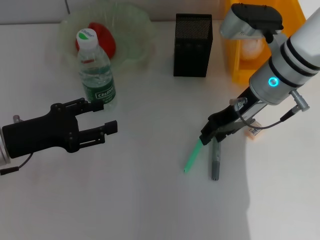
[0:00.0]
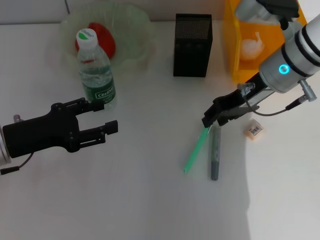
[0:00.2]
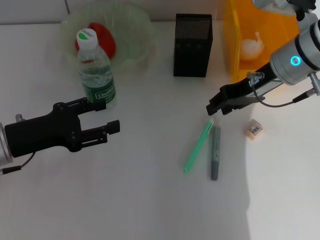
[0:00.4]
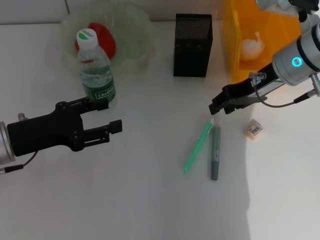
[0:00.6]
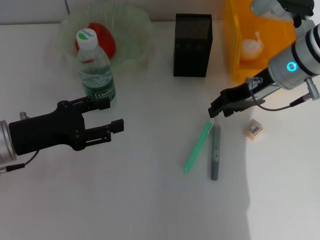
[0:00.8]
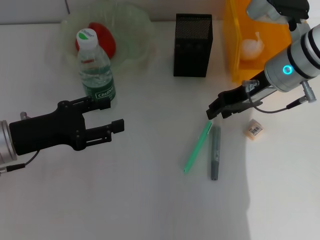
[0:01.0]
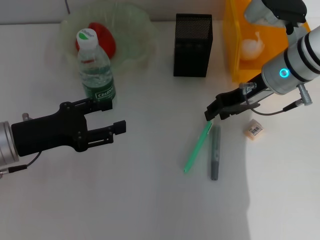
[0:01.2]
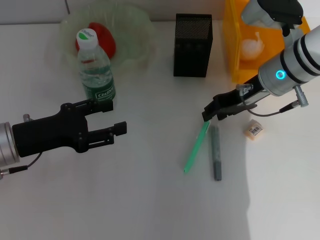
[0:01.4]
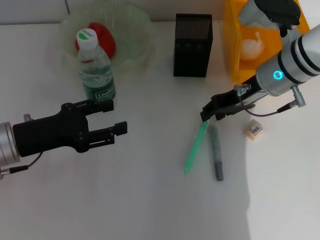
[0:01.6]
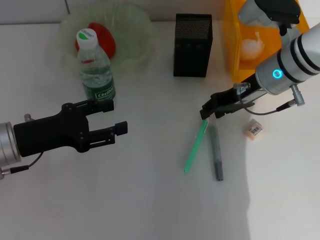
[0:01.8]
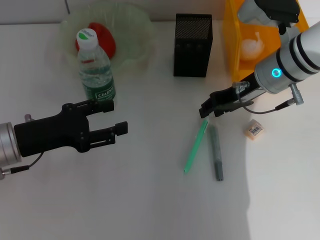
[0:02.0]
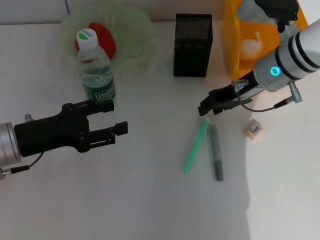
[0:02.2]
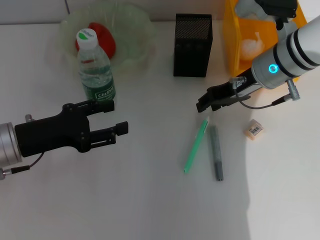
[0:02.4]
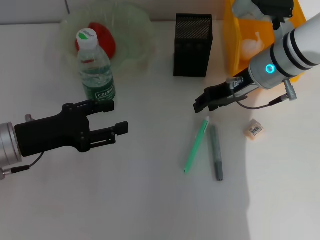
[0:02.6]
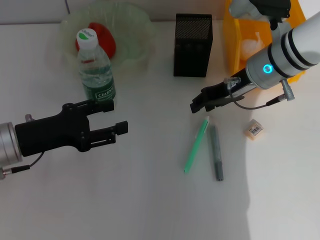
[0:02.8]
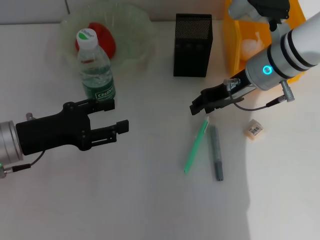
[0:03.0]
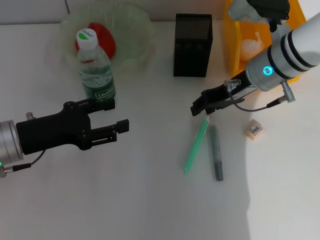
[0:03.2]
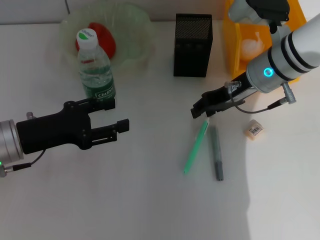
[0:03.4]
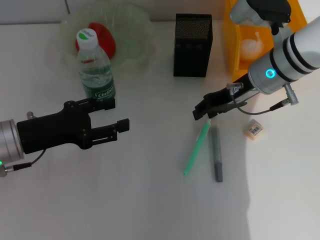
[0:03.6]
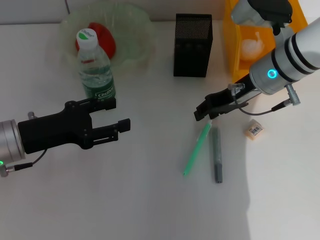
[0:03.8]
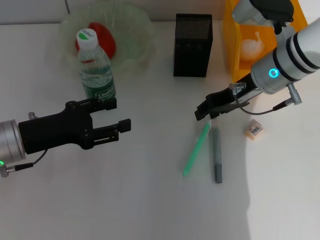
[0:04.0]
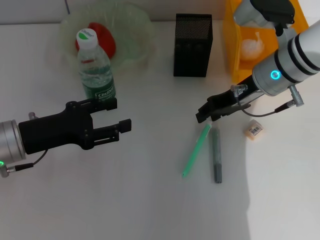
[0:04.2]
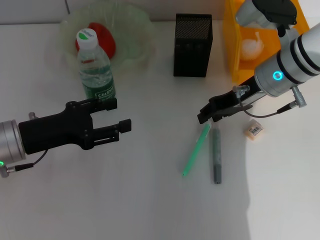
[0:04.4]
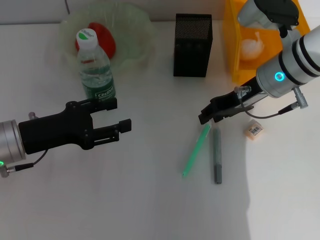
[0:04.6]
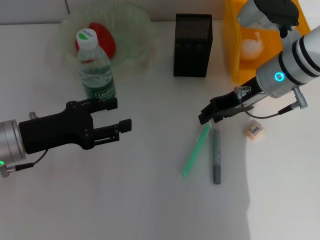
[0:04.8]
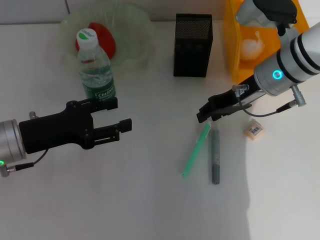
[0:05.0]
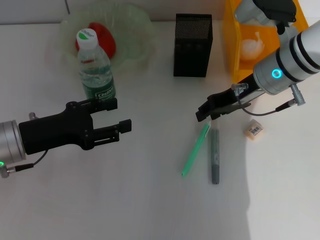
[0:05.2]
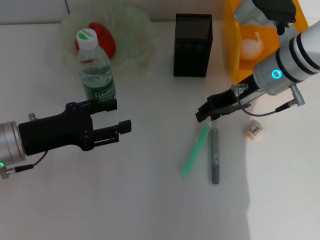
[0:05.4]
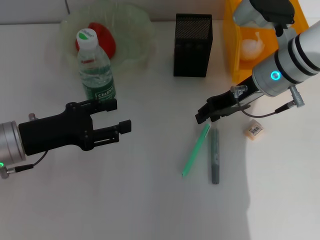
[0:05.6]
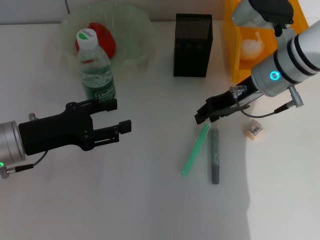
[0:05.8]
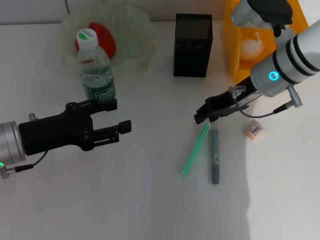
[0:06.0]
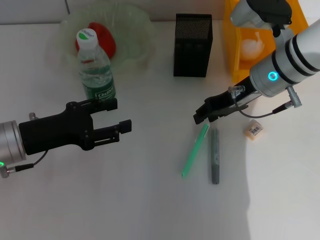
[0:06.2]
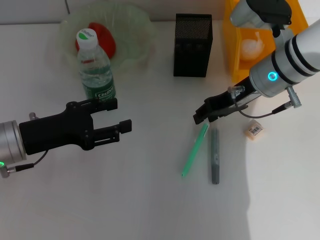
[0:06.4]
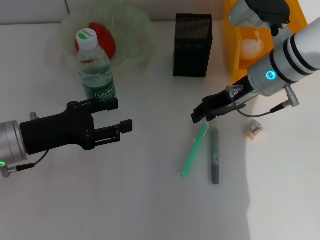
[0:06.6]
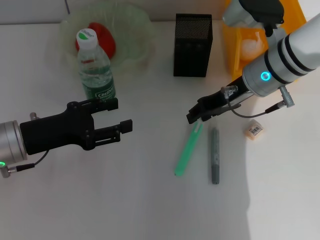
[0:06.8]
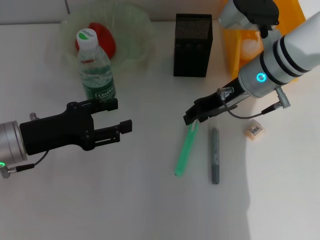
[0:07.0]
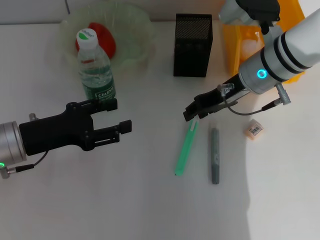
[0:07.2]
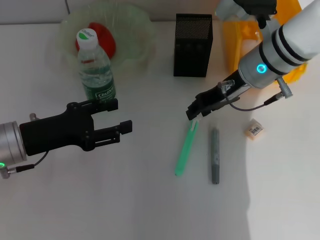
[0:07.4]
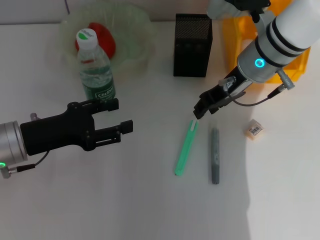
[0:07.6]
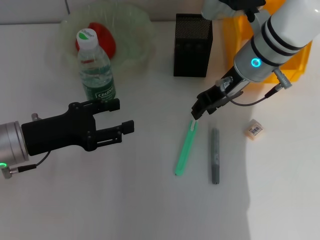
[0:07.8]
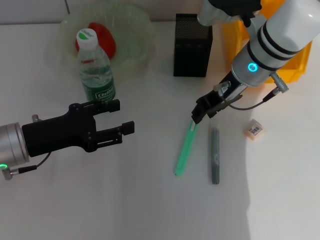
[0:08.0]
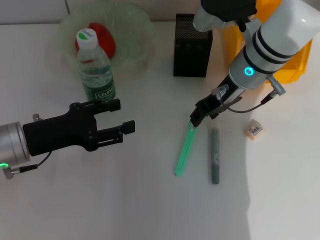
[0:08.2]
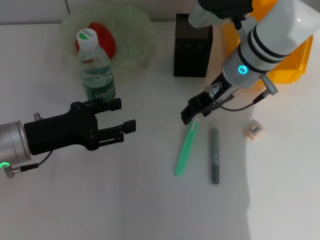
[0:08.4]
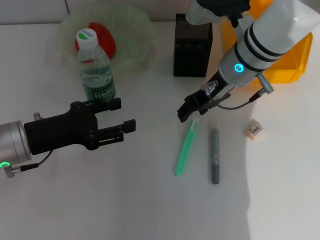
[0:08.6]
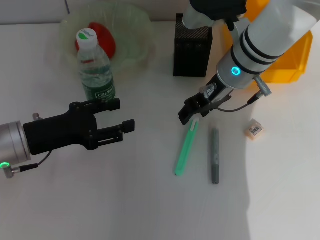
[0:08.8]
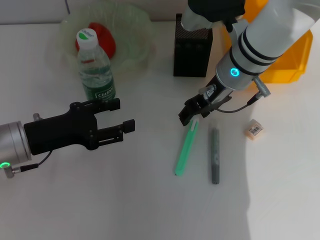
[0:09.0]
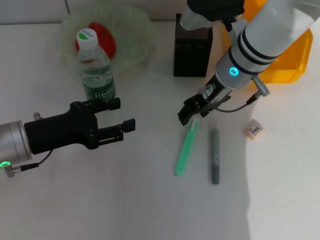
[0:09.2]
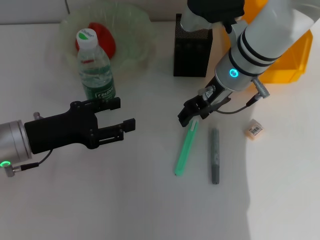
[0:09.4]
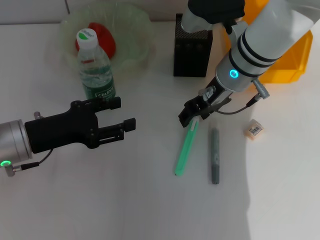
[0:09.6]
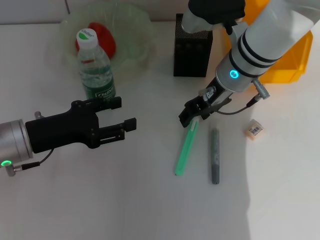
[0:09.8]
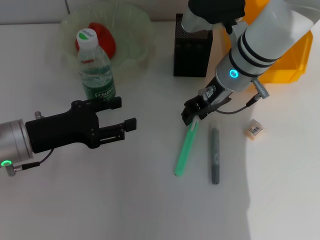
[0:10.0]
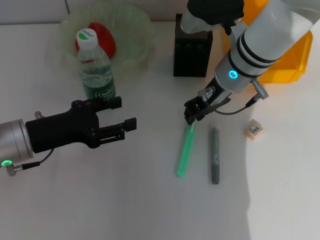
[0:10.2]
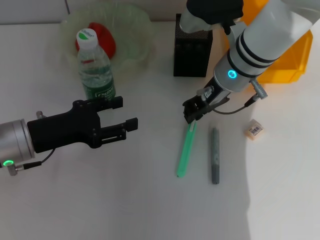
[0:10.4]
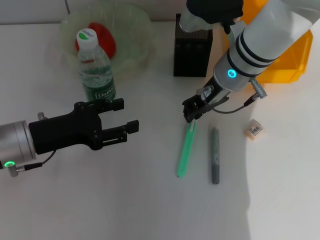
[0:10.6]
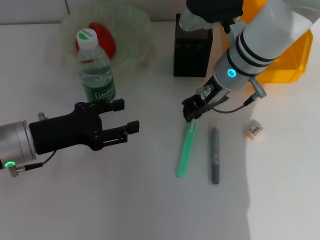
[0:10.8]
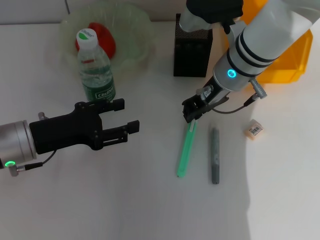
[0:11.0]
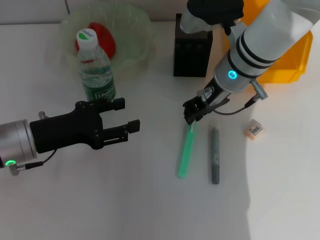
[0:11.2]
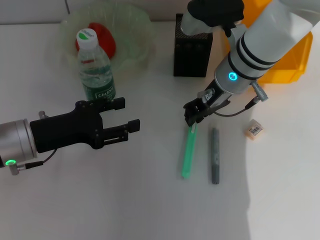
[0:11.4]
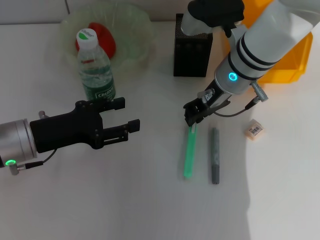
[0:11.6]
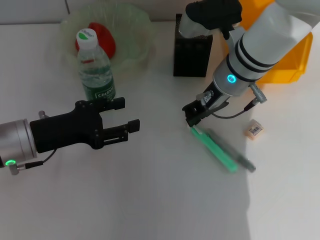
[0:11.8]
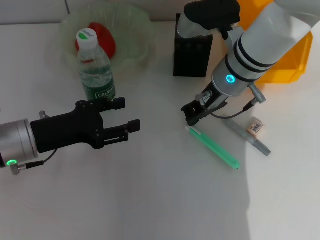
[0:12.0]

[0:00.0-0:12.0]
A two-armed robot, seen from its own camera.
0:00.0 to 0:03.0: The grippers move only a little.
0:03.0 to 0:04.4: Both grippers stay put.
0:04.4 to 0:06.0: The two grippers keep their place.
0:06.0 to 0:07.6: The grippers stay close to where they were, moving slightly.
0:07.6 to 0:09.0: There are only small adjustments of the grippers.
0:09.0 to 0:10.4: The right gripper closes up.
0:10.4 to 0:12.0: The two grippers keep their place.

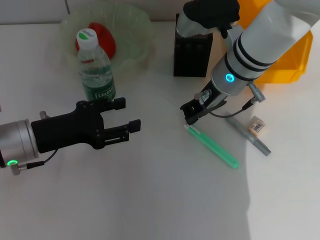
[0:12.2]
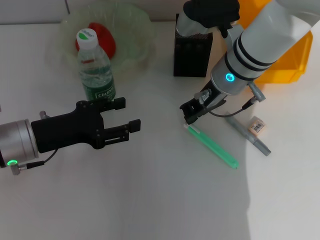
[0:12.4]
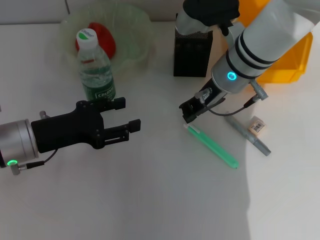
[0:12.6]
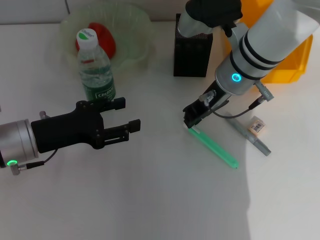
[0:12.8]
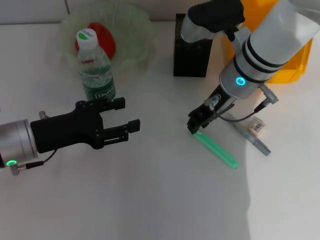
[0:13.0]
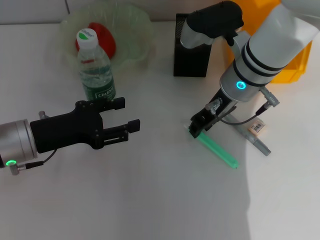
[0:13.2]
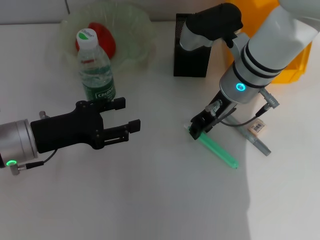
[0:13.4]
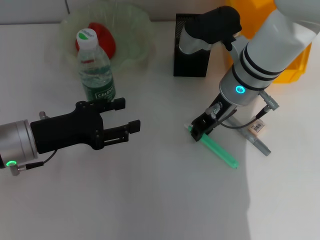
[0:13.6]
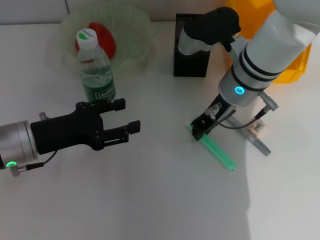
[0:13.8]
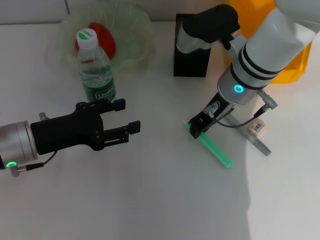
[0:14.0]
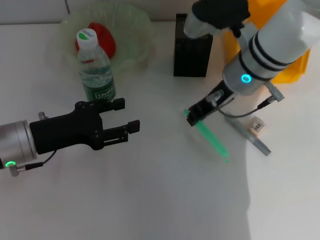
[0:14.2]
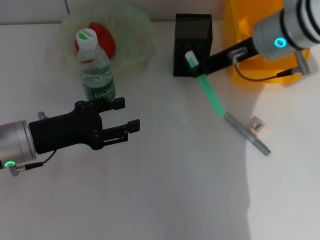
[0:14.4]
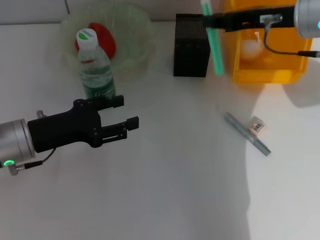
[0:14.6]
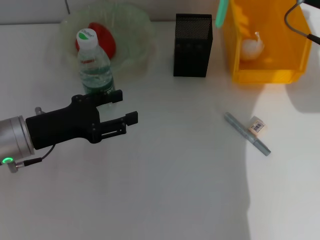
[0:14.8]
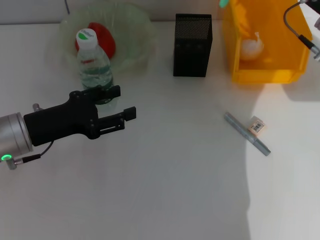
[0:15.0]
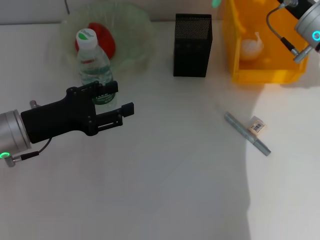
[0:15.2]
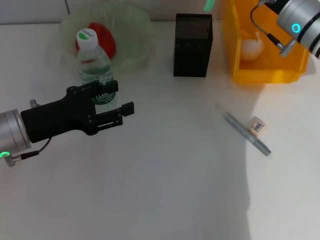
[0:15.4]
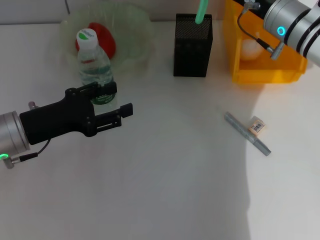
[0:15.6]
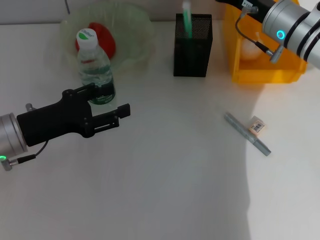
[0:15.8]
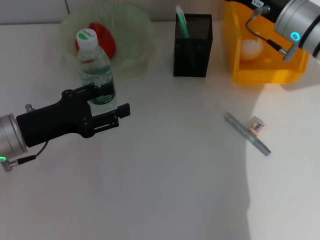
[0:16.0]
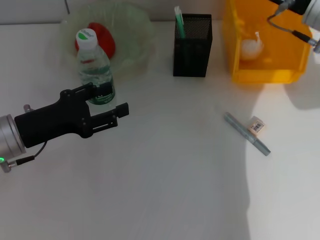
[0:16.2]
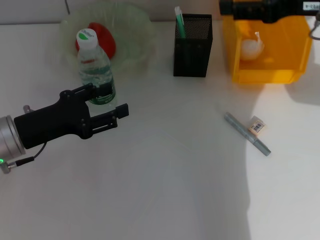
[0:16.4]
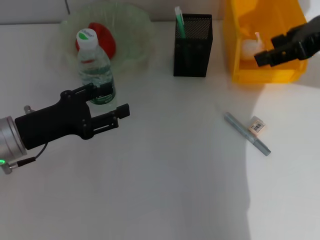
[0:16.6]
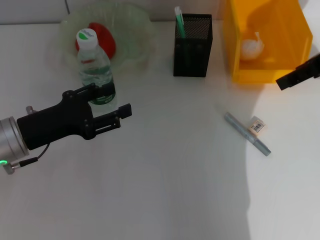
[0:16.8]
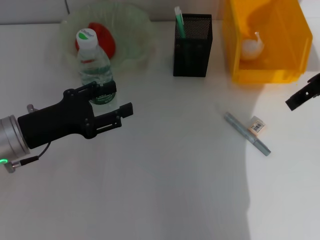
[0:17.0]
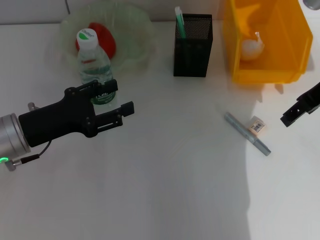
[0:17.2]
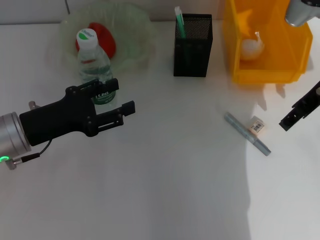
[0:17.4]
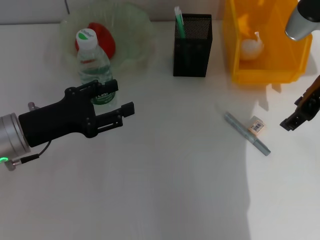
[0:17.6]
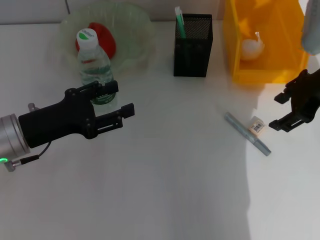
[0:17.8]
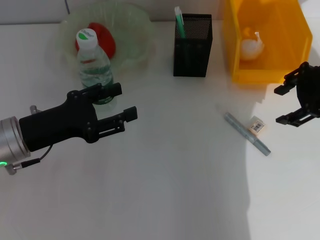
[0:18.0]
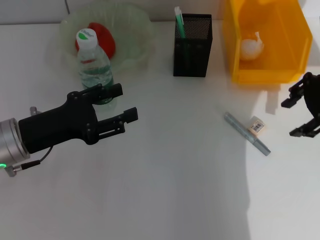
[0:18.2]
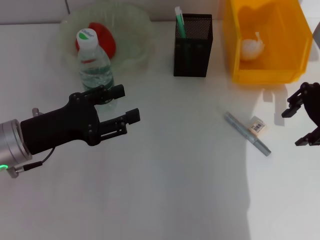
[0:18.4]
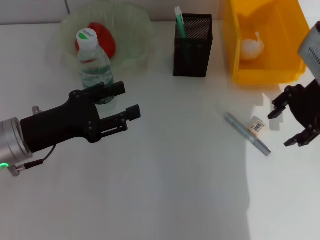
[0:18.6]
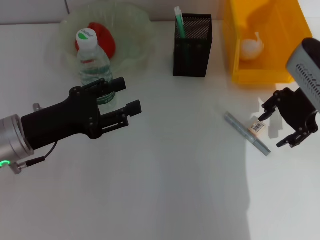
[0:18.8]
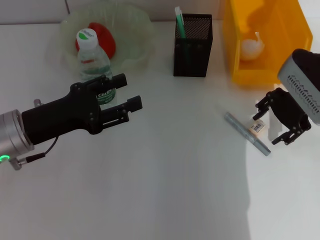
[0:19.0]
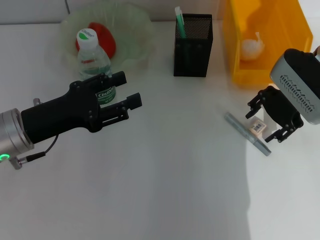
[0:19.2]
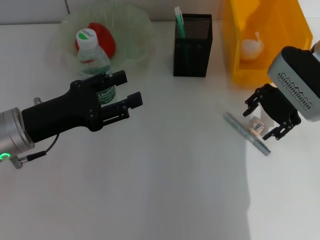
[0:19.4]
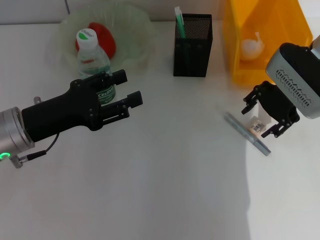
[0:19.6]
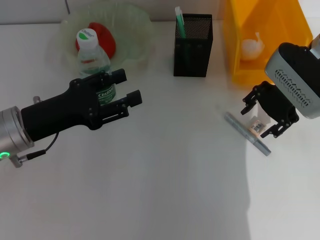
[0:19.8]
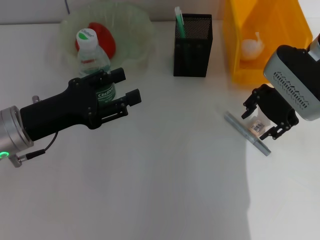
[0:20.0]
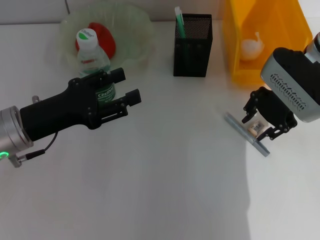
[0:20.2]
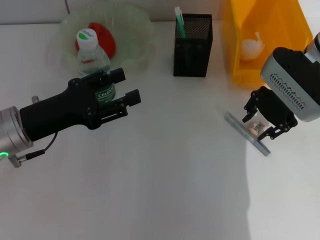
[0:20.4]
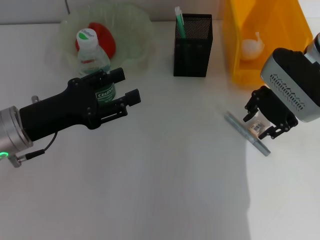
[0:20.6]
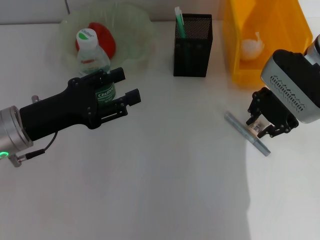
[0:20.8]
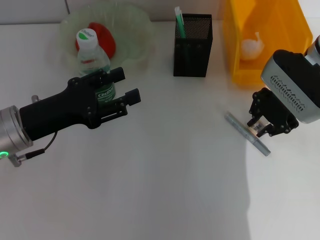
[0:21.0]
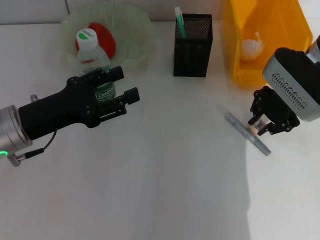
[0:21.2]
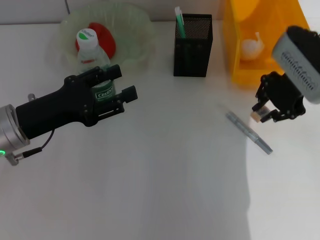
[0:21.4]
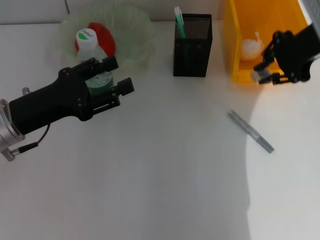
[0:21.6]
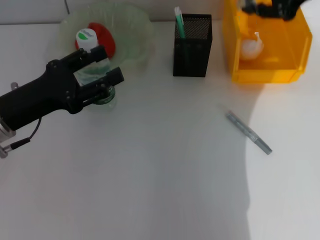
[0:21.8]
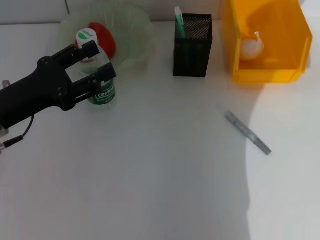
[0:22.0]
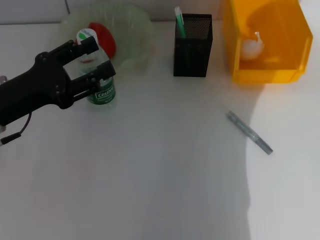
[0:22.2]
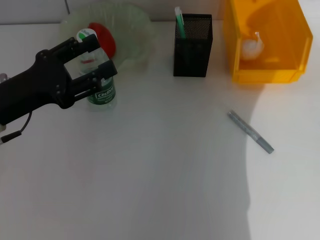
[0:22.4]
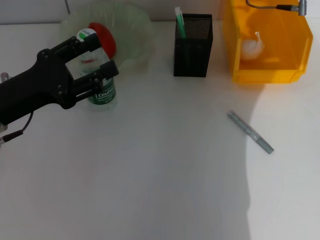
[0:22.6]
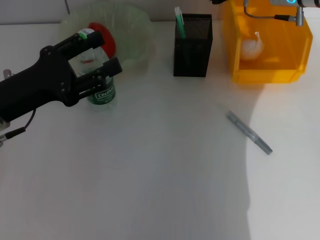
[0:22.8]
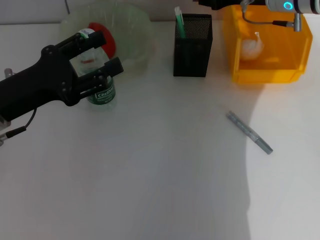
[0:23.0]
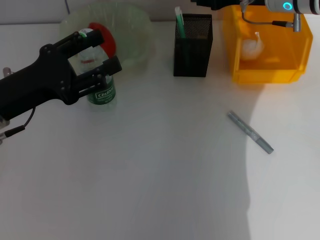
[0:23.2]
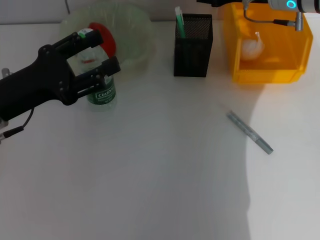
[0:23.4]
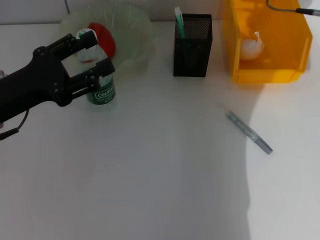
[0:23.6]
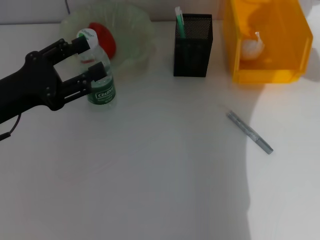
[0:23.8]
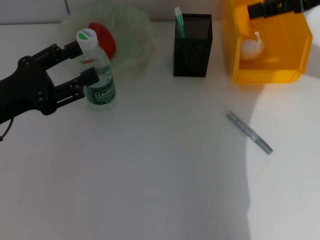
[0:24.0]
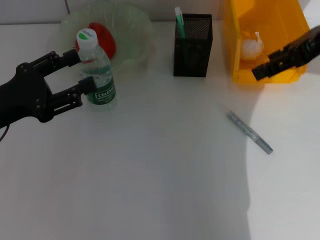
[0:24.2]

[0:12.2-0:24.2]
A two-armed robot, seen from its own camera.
Step, 0:13.8 to 0:15.8: Place the blue utility knife into the pen holder with the right hand.
Step, 0:16.0 to 0:21.0: Grab the eraser with the right hand.
Step, 0:21.2 to 0:22.8: Put the eraser into the pen holder with the right hand.
0:12.2 to 0:13.8: The grippers make only small movements.
0:13.8 to 0:15.2: The right gripper is displaced to the right by some 10 cm.
0:15.2 to 0:16.6: The right gripper moves upward, approximately 15 cm, and opens.
0:16.6 to 0:18.2: The right gripper shifts some 5 cm downward.
0:18.2 to 0:19.8: The right gripper goes some 5 cm to the left.
0:19.8 to 0:21.2: The right gripper closes up.
0:21.2 to 0:22.6: The right gripper is displaced forward and upward by some 10 cm.
0:22.6 to 0:24.2: The right gripper goes some 15 cm backward, upward and to the right, and opens its fingers.
